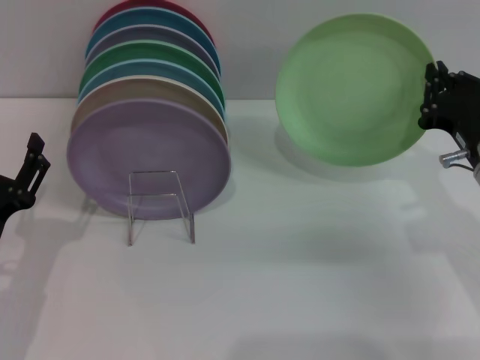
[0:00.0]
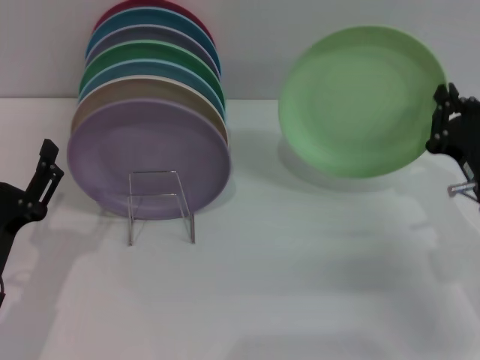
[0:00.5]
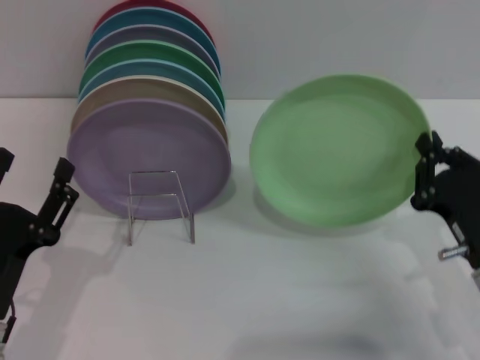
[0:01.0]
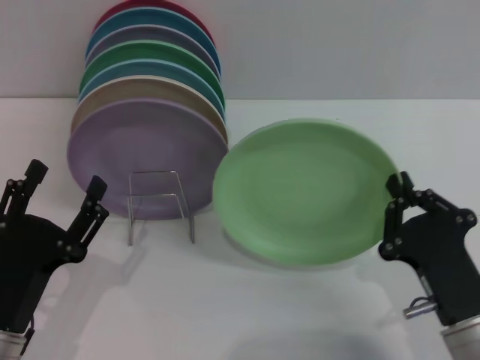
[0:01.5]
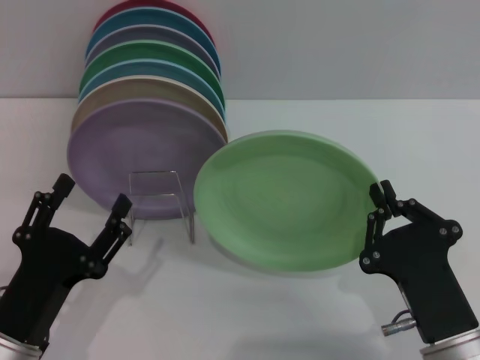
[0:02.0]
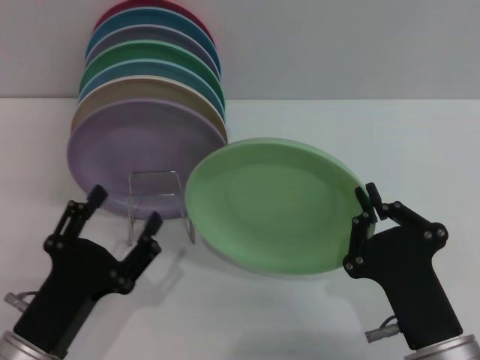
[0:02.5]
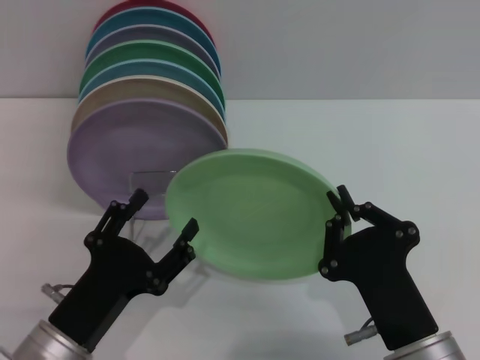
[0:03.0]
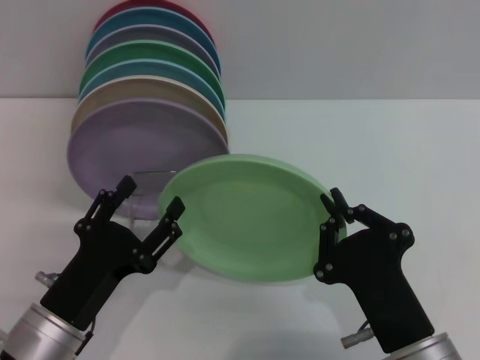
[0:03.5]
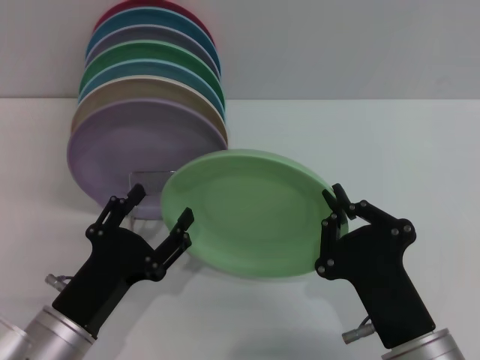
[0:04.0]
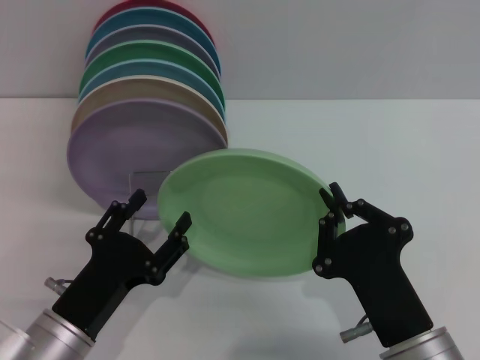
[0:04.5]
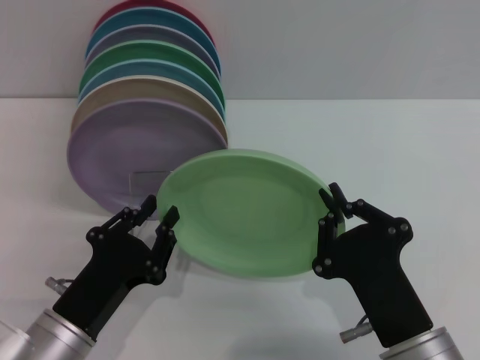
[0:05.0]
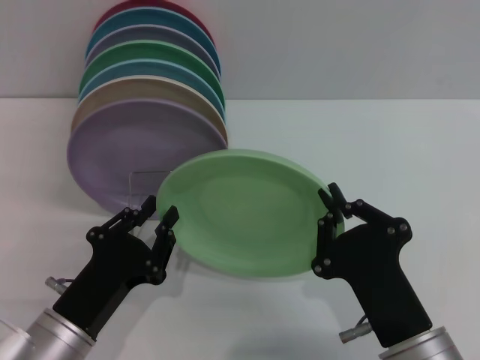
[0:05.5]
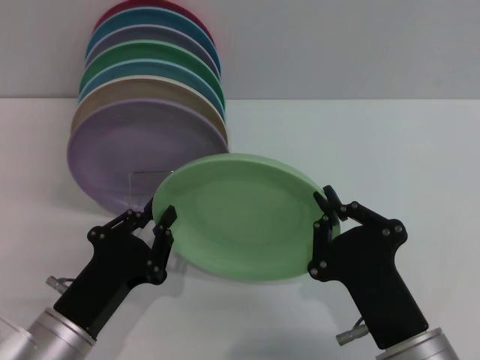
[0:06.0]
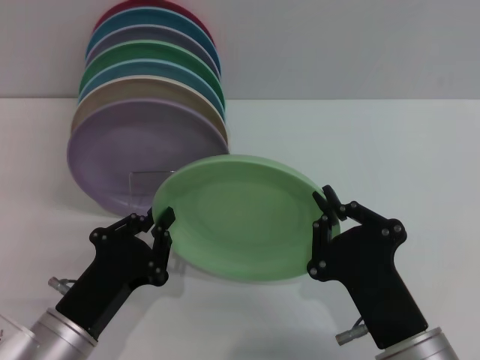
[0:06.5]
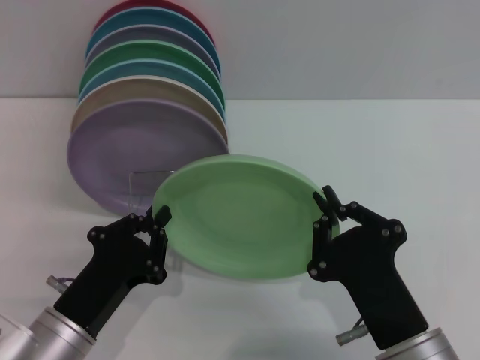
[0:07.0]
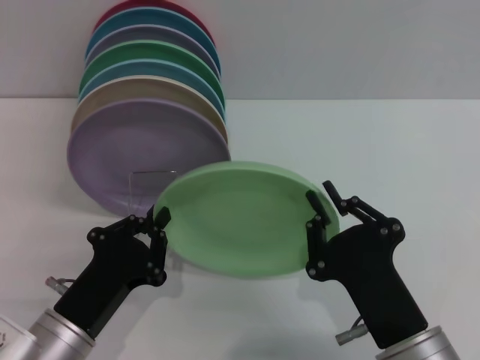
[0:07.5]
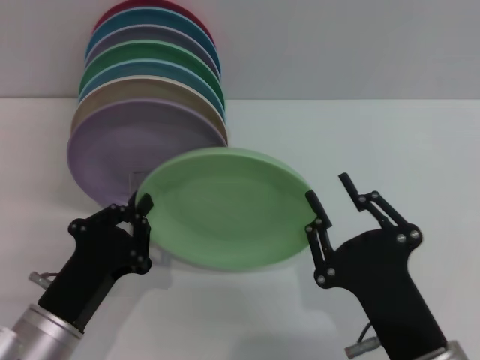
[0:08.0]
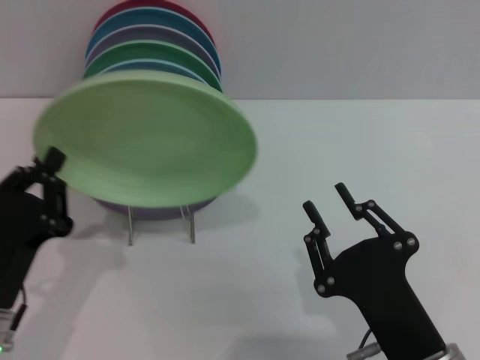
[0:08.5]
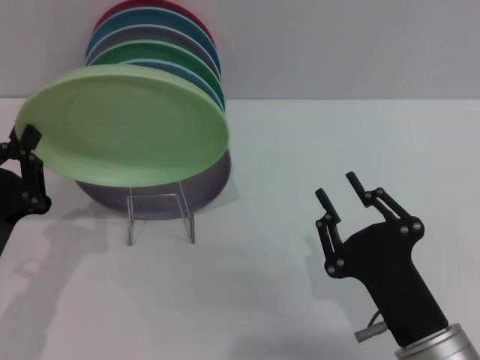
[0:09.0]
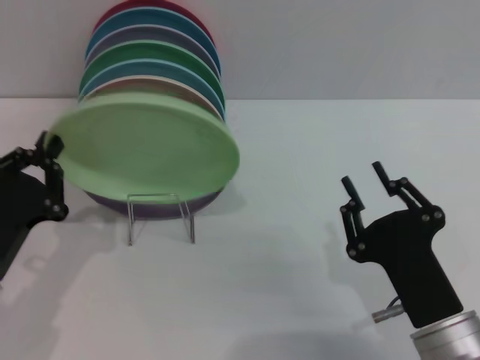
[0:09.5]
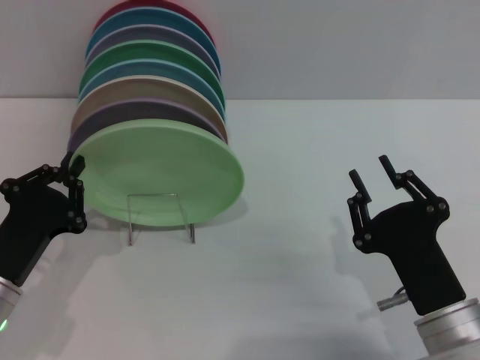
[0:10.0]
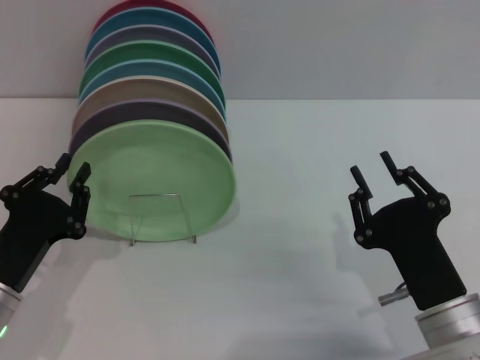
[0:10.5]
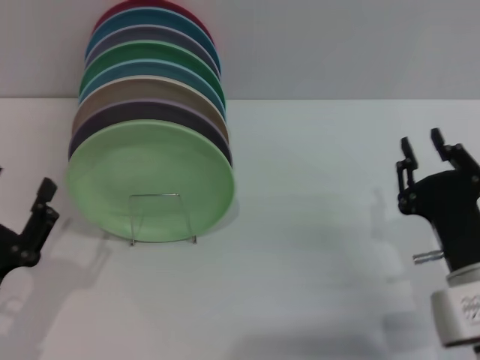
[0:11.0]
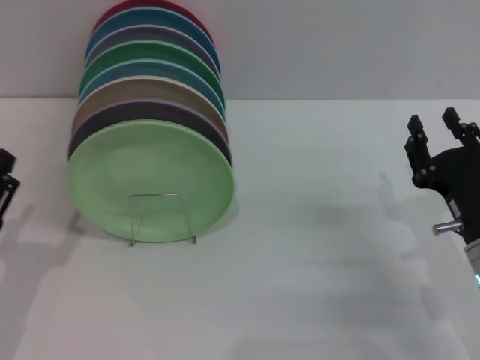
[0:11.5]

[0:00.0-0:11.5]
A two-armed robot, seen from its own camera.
Task of the whole recording: Grip the plate with one hand, pass it to the other, then set it on the shelf.
Step, 0:00.0 to 0:08.0: Pass the plate from the right gripper to the left gripper.
Step, 0:08.5 to 0:10.5: Place the plate on the shelf with the left gripper.
0:00.0 to 0:02.0: The left gripper shifts about 5 cm backward. Meanwhile the right gripper travels backward and to the left by approximately 20 cm.
0:04.0 to 0:06.0: The left gripper closes its fingers.
0:06.0 to 0:07.5: The two grippers keep their place.
0:07.5 to 0:09.5: The left gripper heads to the left, covering roughly 5 cm. The right gripper opens.
0:09.5 to 0:11.5: The left gripper opens, while the right gripper heads forward and to the right, covering roughly 10 cm.
